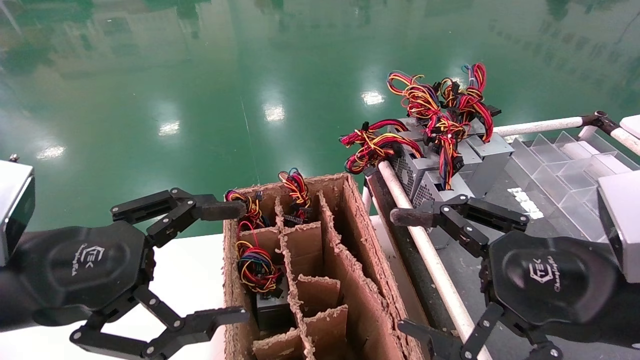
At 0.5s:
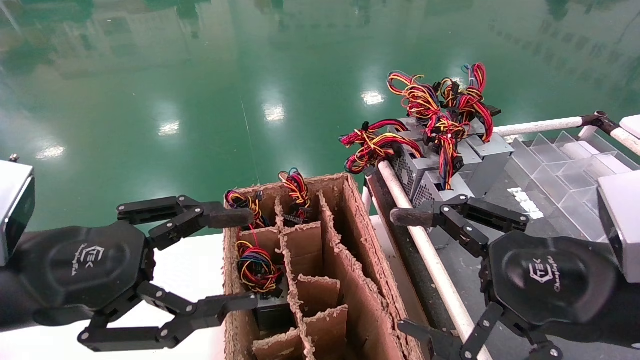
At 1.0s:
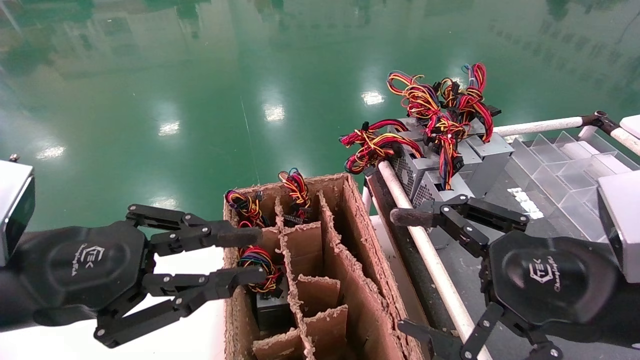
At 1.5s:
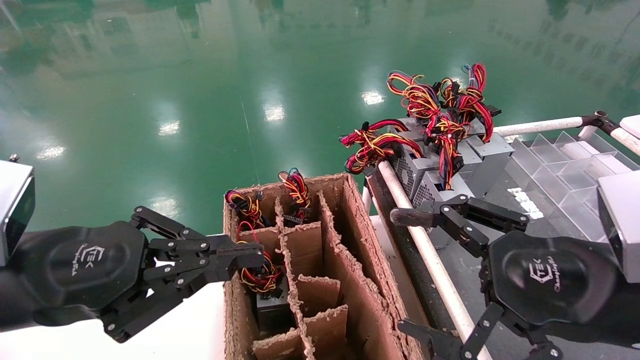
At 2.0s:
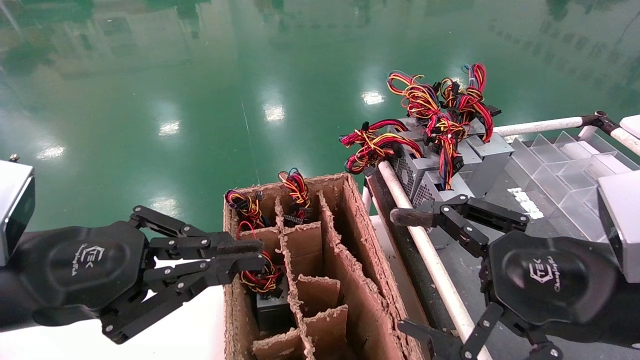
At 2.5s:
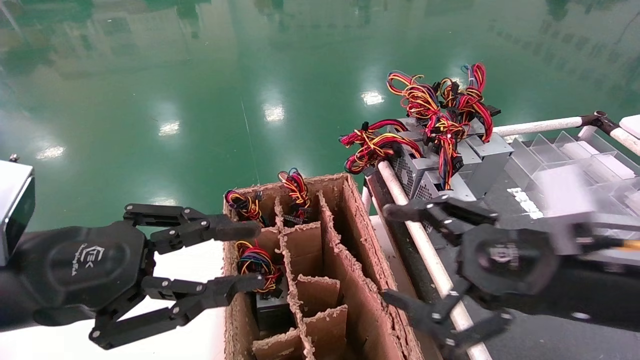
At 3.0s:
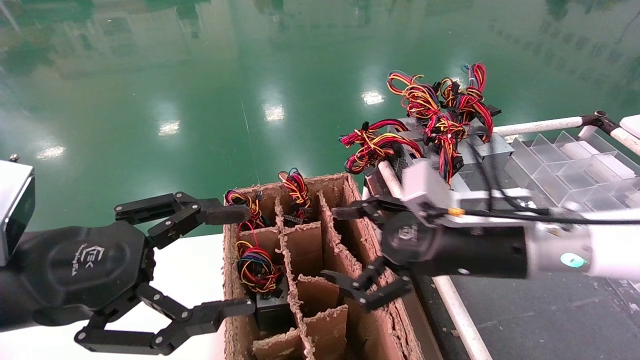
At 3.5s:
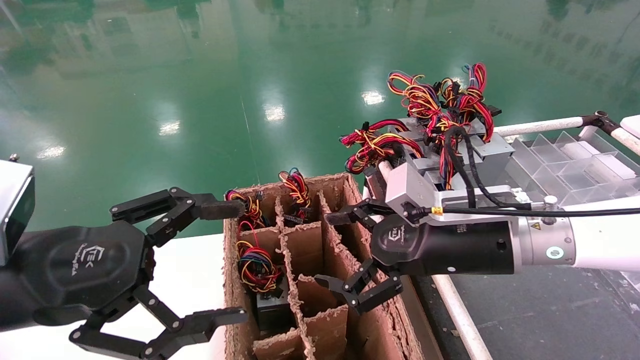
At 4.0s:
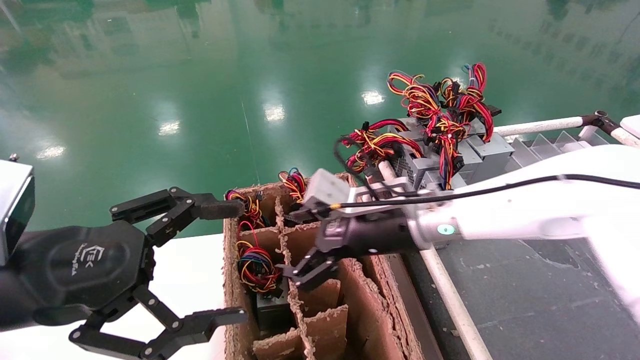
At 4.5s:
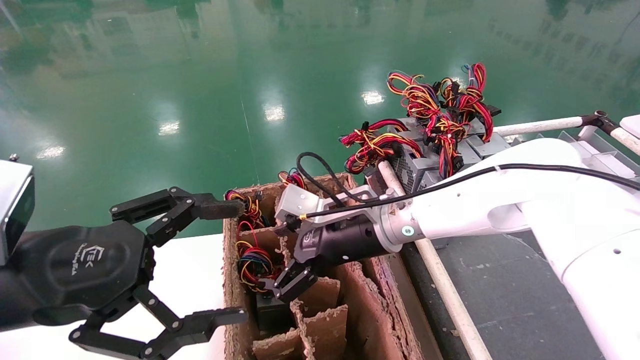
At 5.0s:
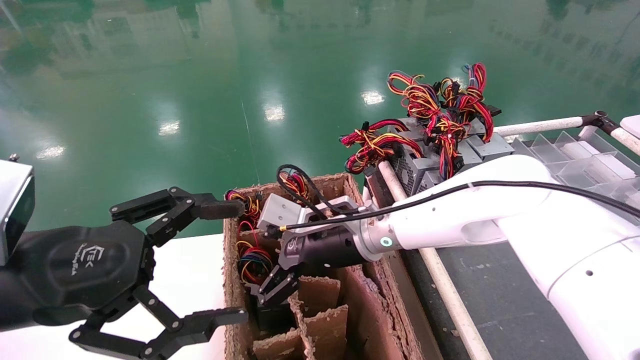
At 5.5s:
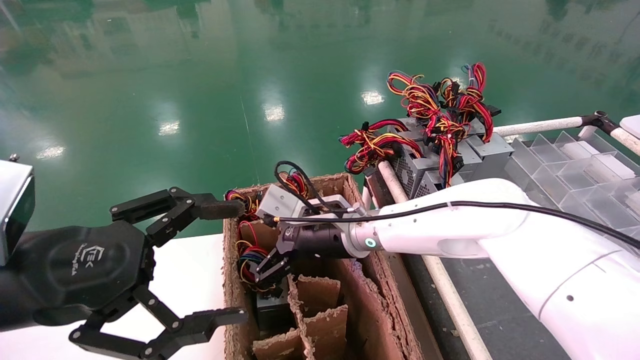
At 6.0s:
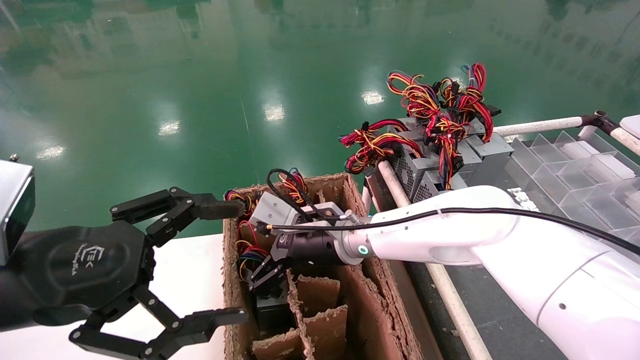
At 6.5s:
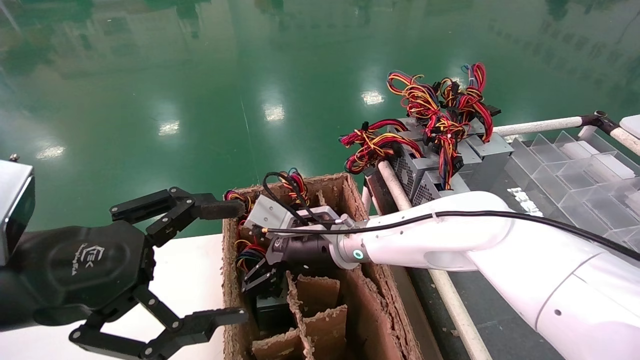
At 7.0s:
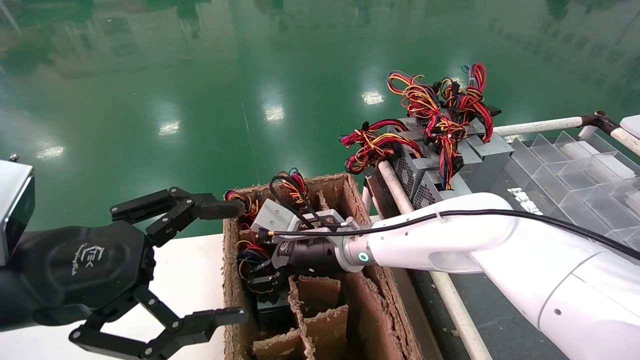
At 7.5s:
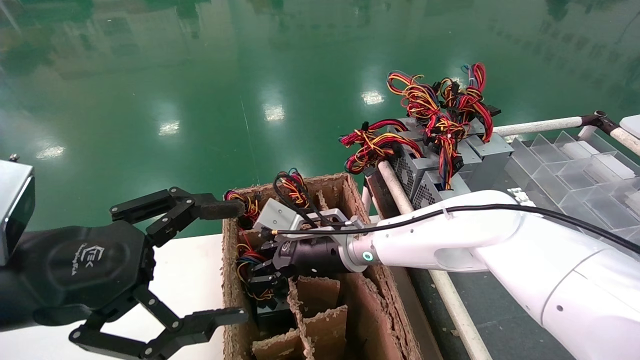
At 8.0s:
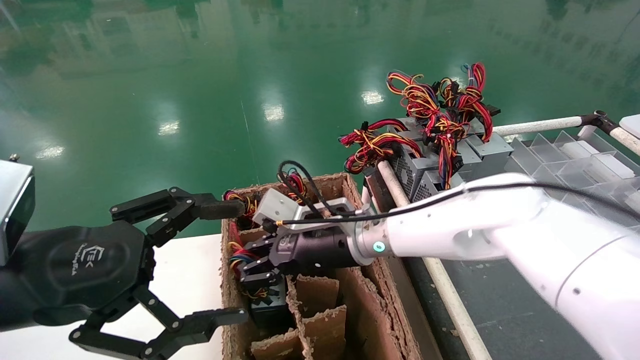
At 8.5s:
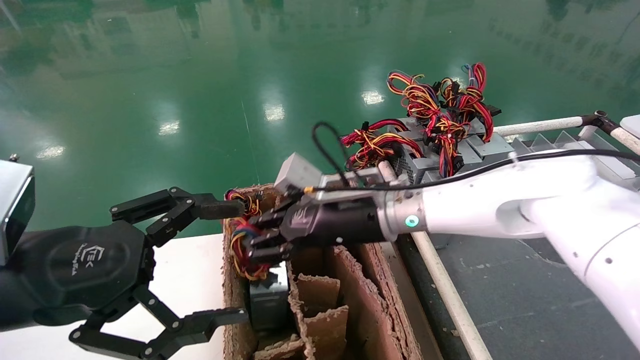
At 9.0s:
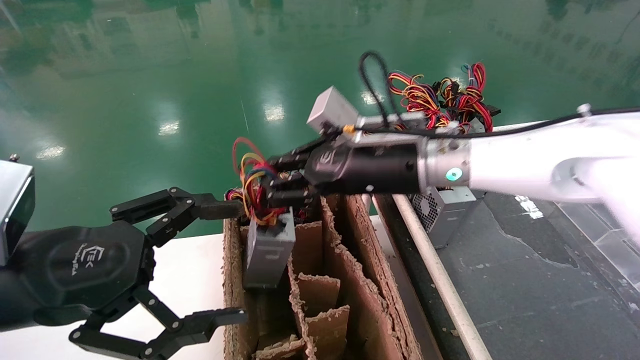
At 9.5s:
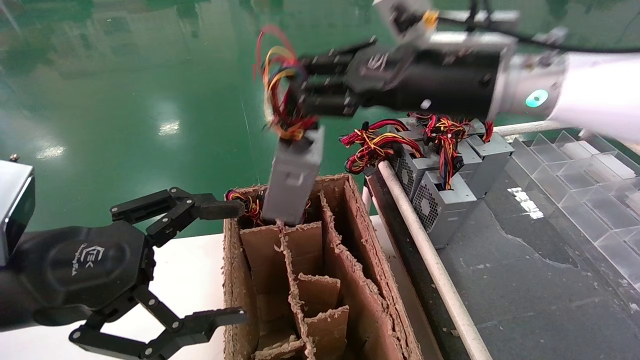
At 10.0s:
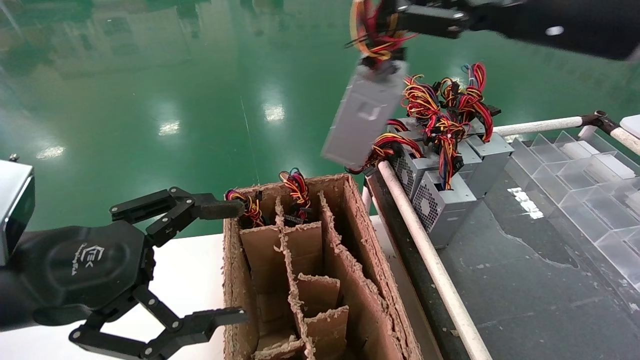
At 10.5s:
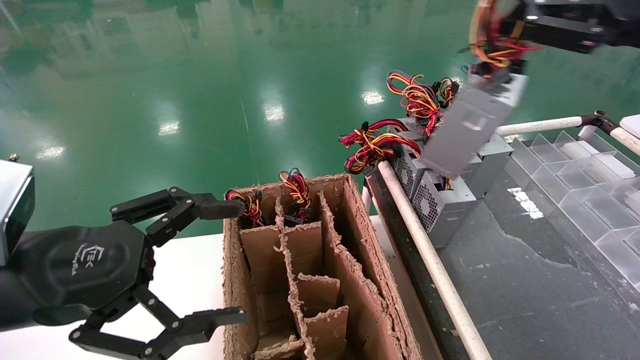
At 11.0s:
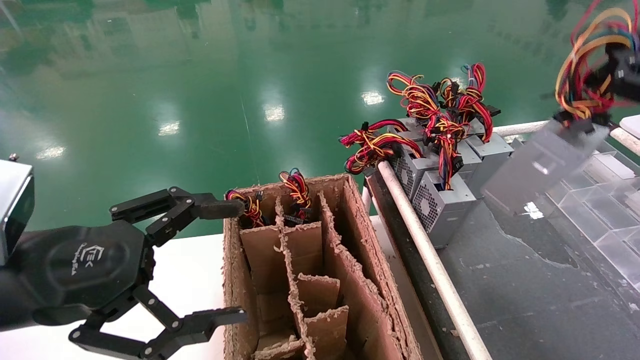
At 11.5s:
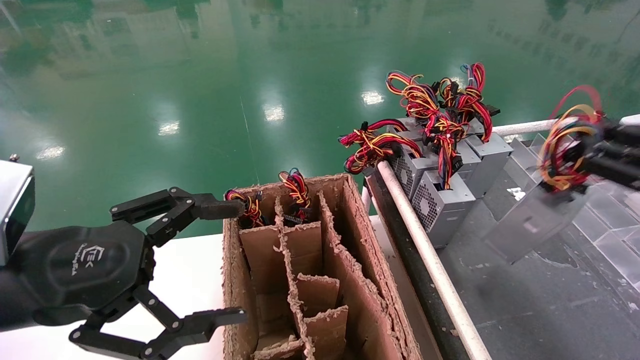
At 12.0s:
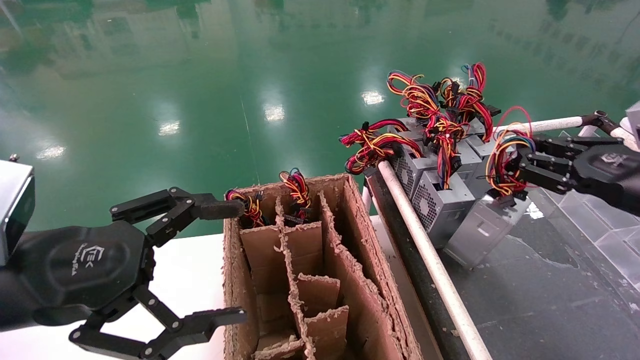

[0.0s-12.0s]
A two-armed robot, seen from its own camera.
Step, 2.5s to 7.5s: Grab and lift the power supply from the large box.
0.0s to 2.0s: The left gripper closes up.
2.0s to 4.0s: The left gripper opens. Meanwhile the right gripper shifts approximately 25 cm forward and to the left.
4.0s to 6.0s: The right gripper heads to the left, covering about 10 cm.
6.0s to 8.0s: The right gripper closes up.
8.0s to 10.0s: The right gripper travels upward and to the right by about 35 cm.
10.0s to 12.0s: The right gripper heads downward and to the right, covering approximately 20 cm.

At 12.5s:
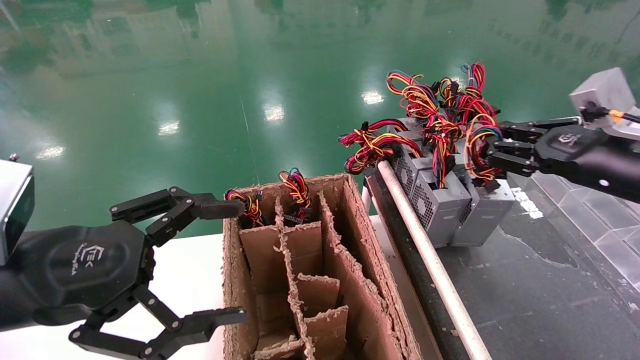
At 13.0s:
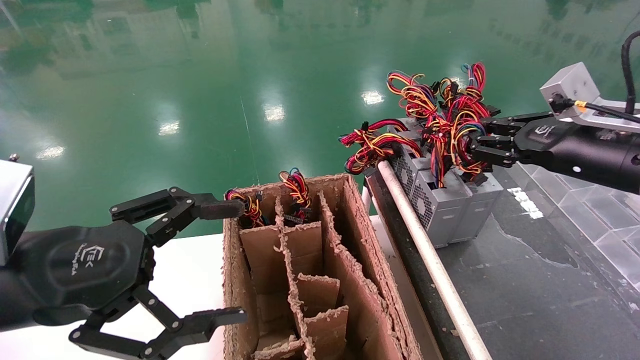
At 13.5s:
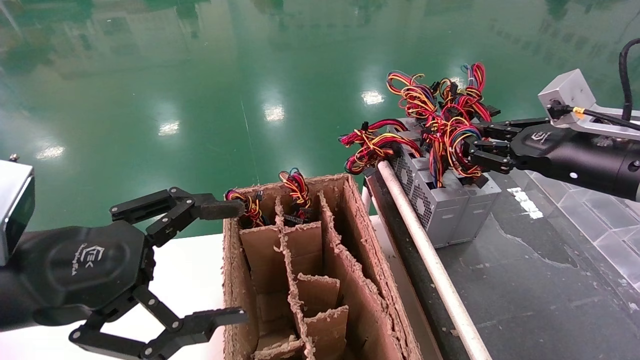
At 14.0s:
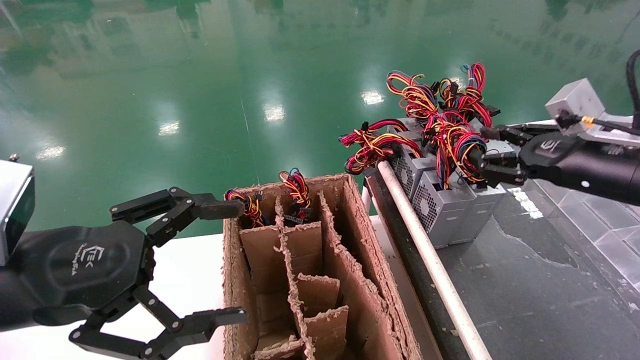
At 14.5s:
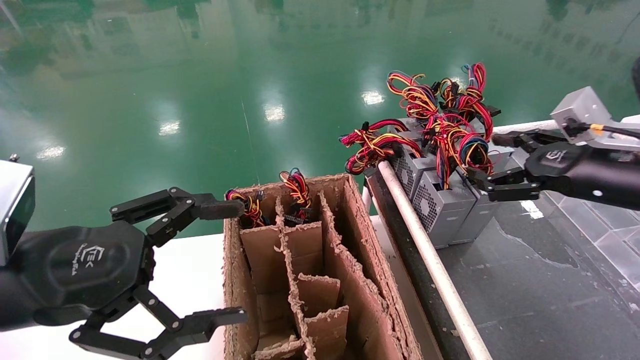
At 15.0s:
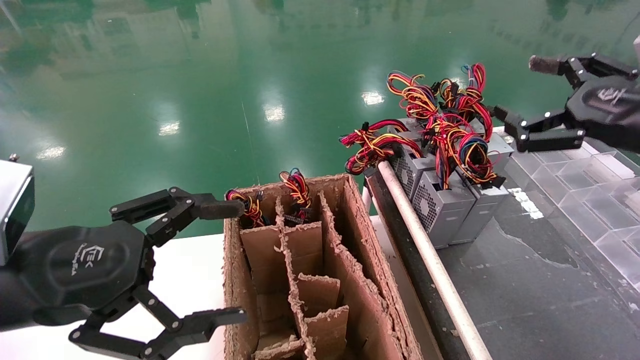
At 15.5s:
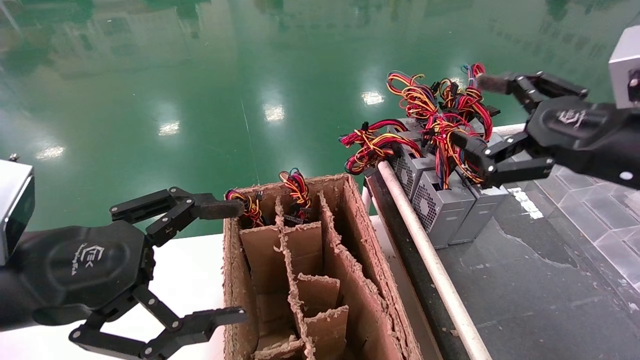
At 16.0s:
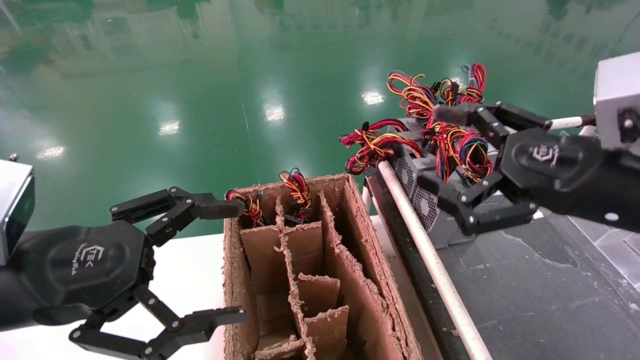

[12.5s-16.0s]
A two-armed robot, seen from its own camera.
12.5s to 14.5s: The right gripper opens.
14.5s to 16.0s: The right gripper moves backward and to the left, about 10 cm.
